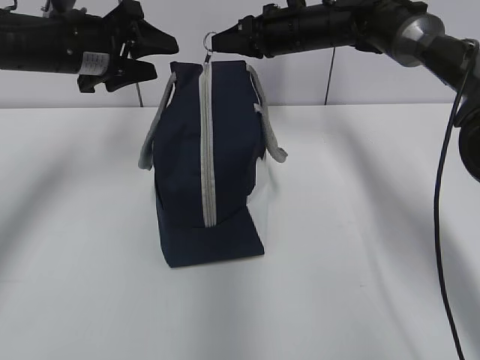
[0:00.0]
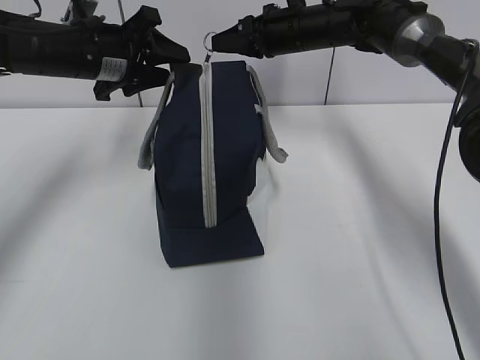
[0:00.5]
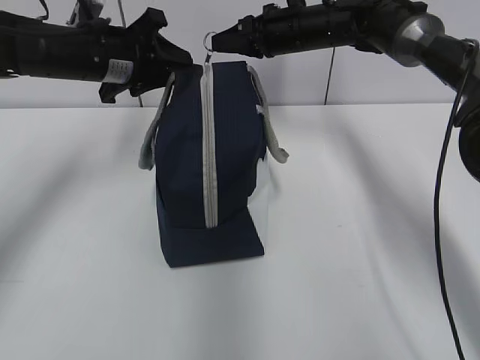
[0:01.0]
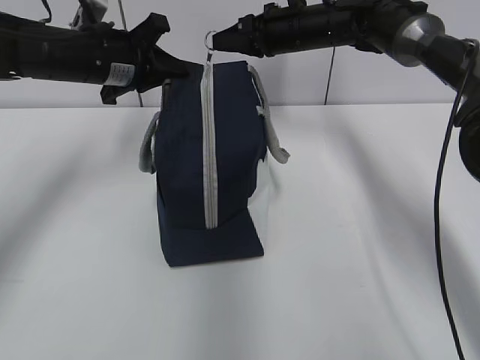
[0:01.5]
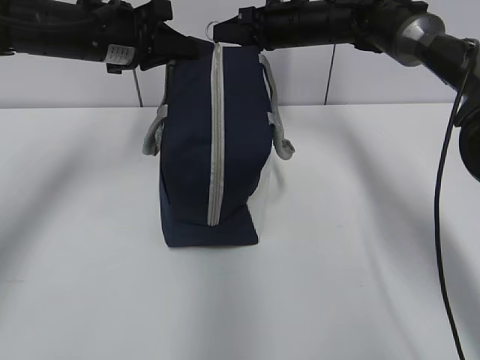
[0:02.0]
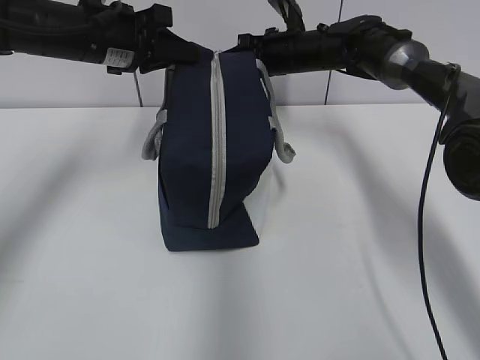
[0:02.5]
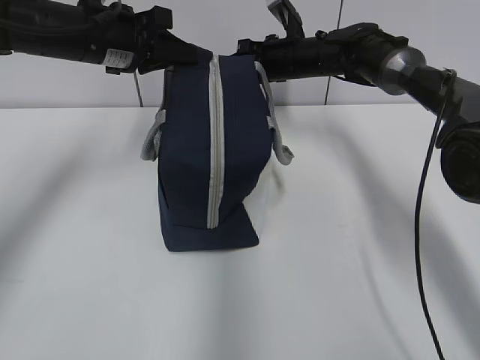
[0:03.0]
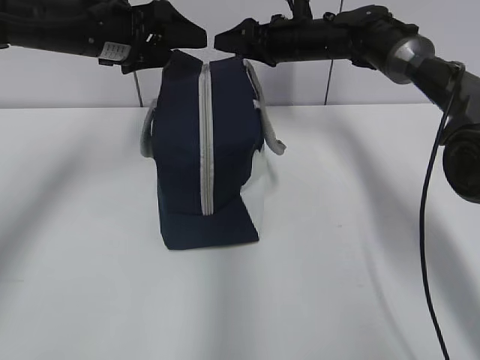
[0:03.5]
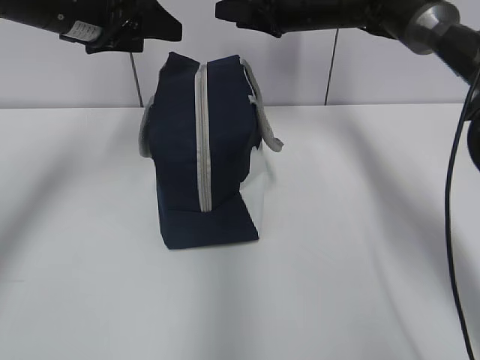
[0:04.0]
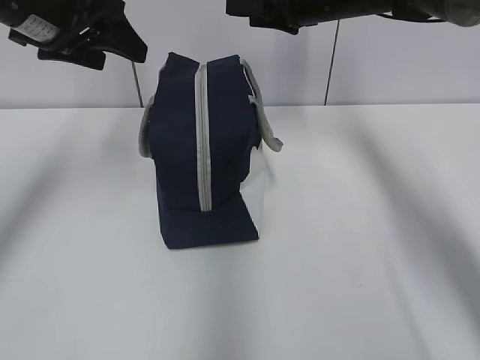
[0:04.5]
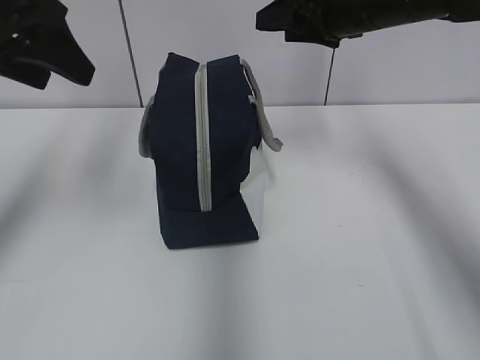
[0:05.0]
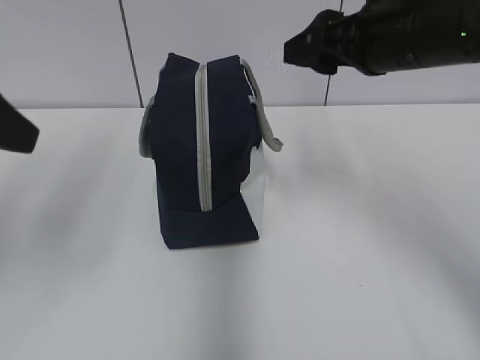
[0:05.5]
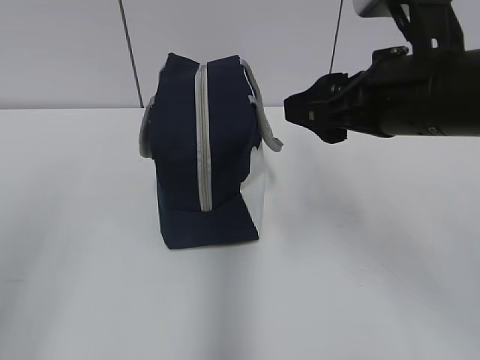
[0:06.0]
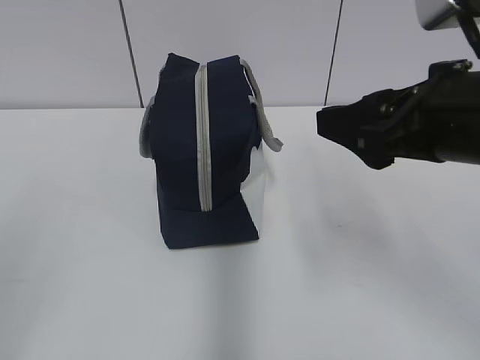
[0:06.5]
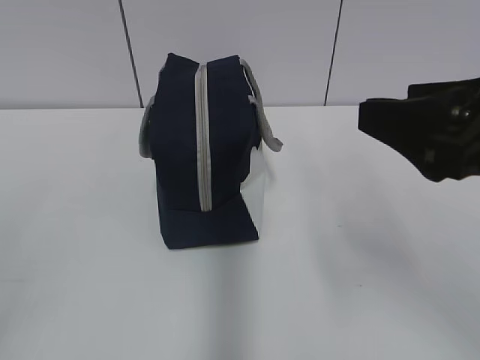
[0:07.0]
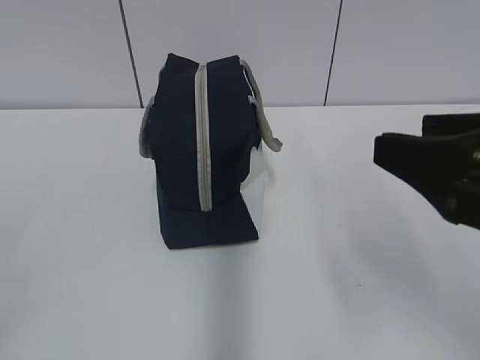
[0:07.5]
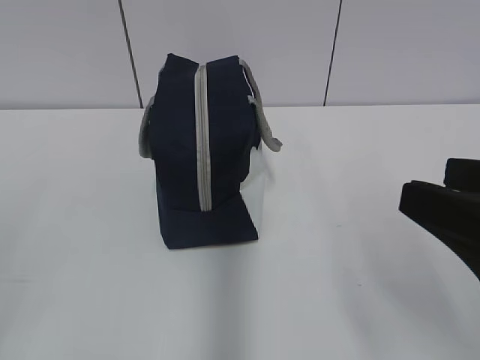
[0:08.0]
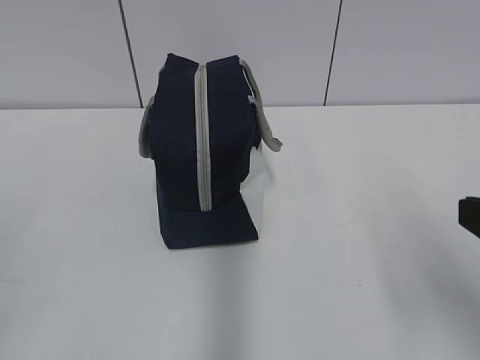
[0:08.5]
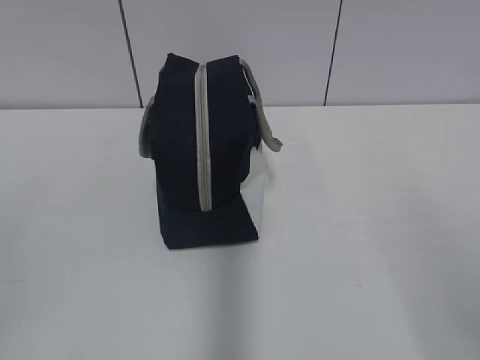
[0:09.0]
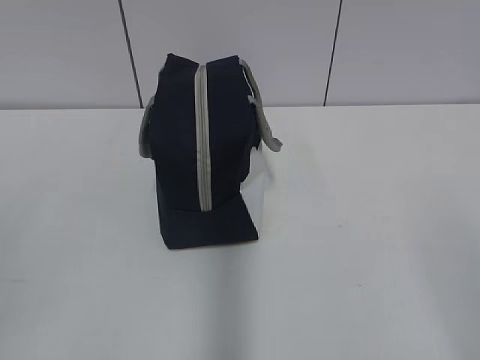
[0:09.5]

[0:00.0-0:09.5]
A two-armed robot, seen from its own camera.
0:00.0 to 0:02.0: The left gripper closes.
0:02.0 to 0:04.0: The left gripper opens its fingers; the right gripper opens its fingers.
0:04.0 to 0:05.5: Both grippers move backward, approximately 20 cm.
0:05.5 to 0:07.5: Both grippers travel together backward, roughly 20 cm.
0:07.5 to 0:09.5: The right gripper is displaced backward and to the right by roughly 15 cm.
